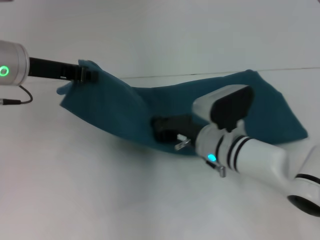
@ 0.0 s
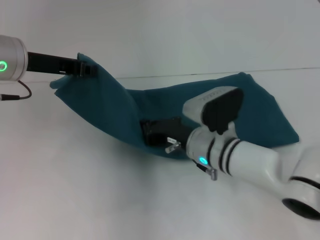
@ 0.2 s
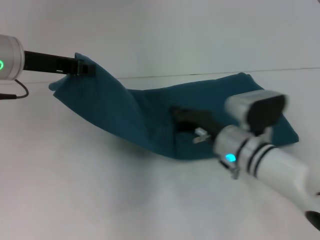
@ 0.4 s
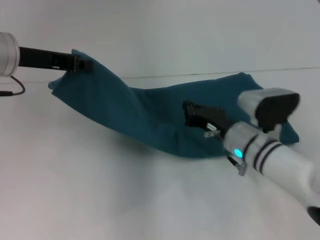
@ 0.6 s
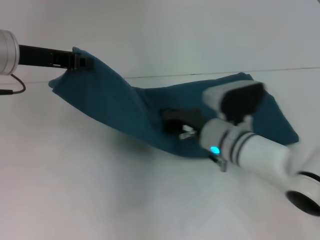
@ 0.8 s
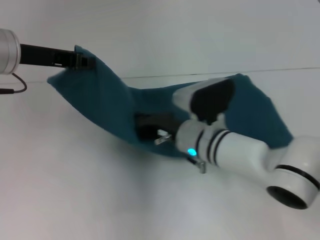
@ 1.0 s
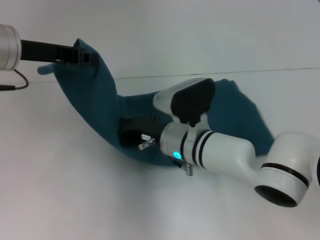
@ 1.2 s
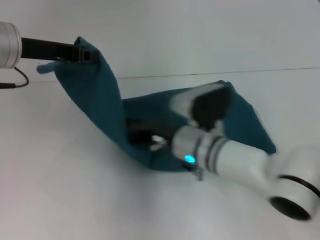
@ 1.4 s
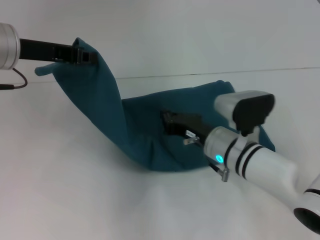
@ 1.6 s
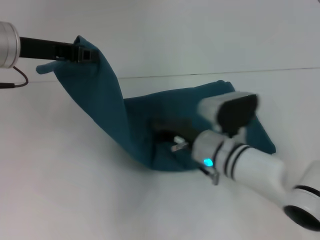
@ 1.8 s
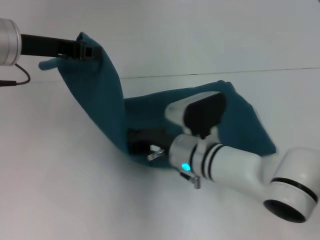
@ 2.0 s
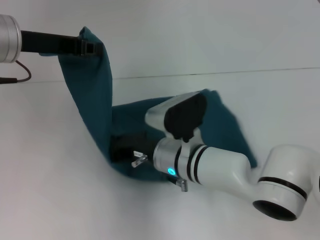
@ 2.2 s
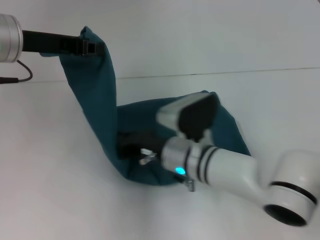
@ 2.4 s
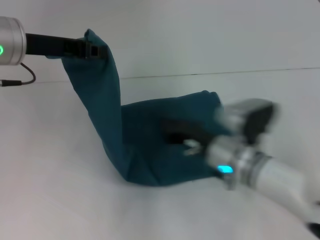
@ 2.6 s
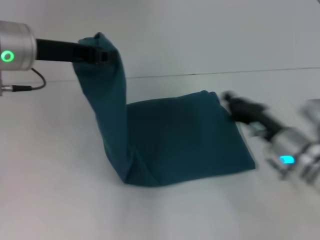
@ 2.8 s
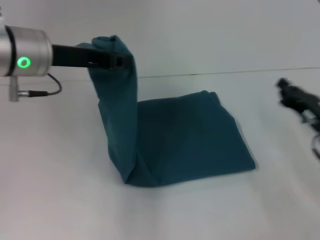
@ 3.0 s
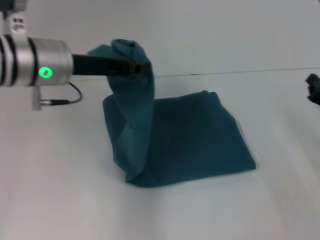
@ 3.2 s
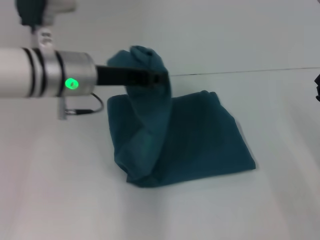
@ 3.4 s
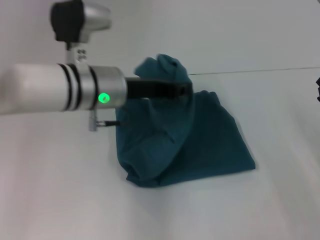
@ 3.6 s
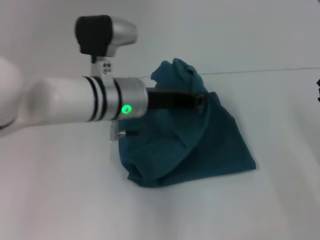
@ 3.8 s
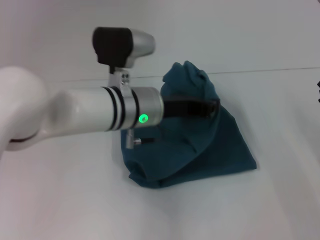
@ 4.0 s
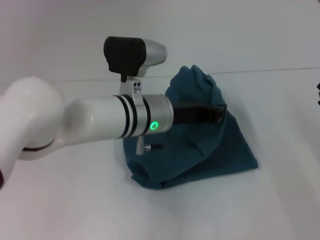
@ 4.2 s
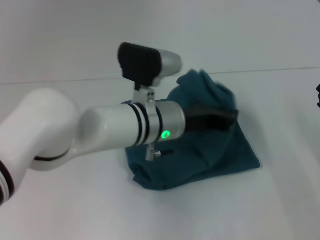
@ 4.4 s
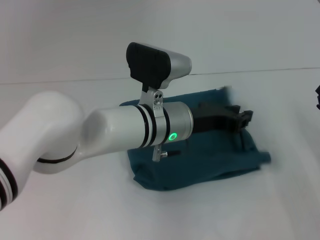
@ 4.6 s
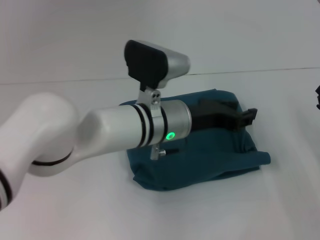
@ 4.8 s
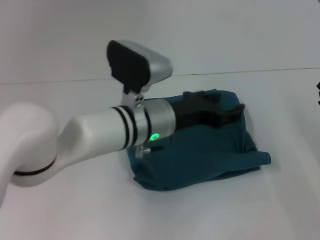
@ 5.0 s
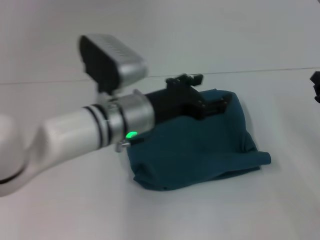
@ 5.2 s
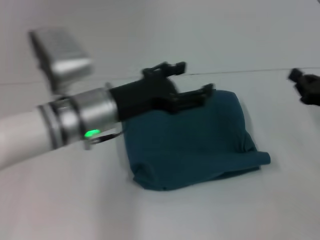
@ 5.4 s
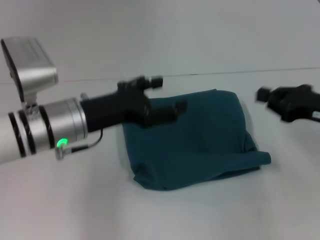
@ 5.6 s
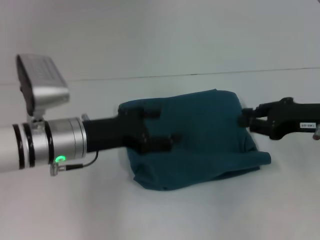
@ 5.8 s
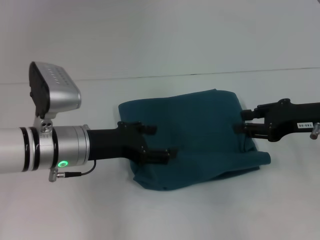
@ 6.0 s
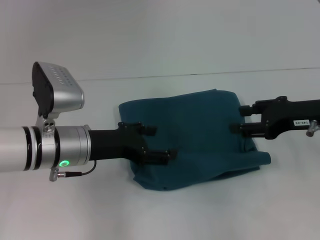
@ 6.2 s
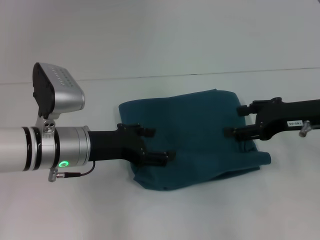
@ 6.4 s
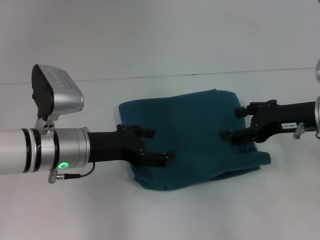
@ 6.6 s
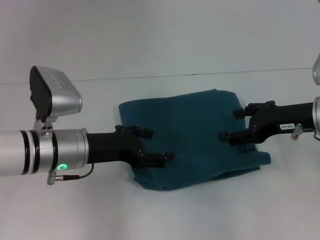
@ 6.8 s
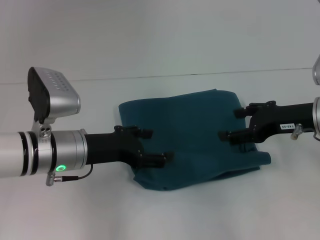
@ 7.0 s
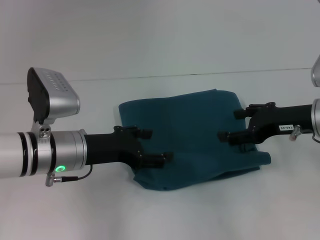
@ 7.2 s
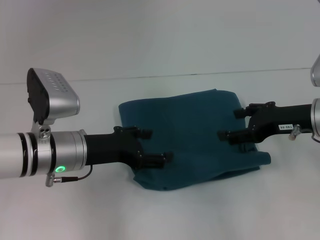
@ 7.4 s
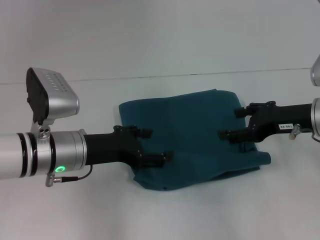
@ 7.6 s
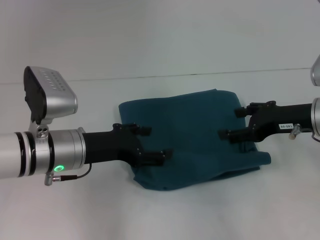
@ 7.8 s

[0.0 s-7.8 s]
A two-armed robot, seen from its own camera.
Step, 0.4 to 4.8 s: Fold the clothes to the left.
0.0 to 1.6 s: The right gripper swings left and right, about 10 cm each way, with 2 reversals.
1.6 to 3.2 s: The left gripper travels to the right by about 5 cm, while the right gripper is displaced to the right by roughly 20 cm.
3.2 to 4.6 s: The left gripper heads to the right and downward, covering roughly 15 cm.
4.6 to 6.2 s: The left gripper is displaced to the left by some 15 cm, and opens. The right gripper moves upward and to the left, roughly 15 cm.
6.2 to 7.8 s: The right gripper opens.
